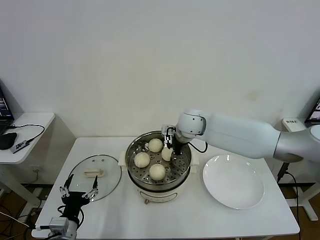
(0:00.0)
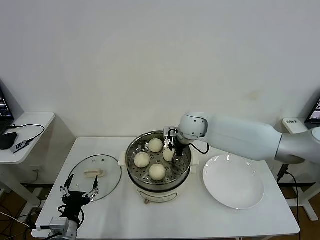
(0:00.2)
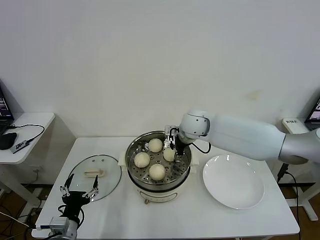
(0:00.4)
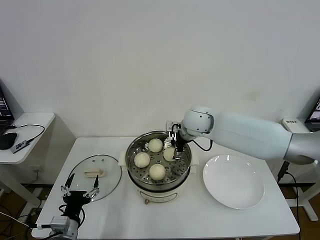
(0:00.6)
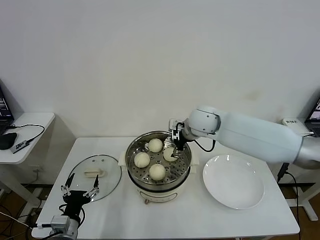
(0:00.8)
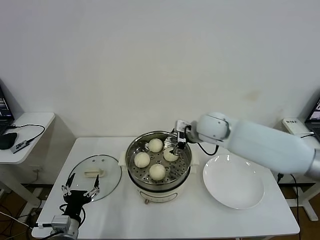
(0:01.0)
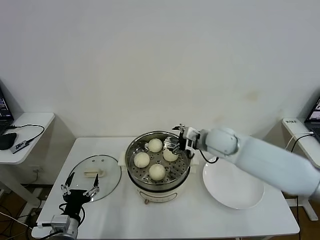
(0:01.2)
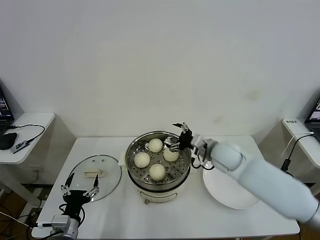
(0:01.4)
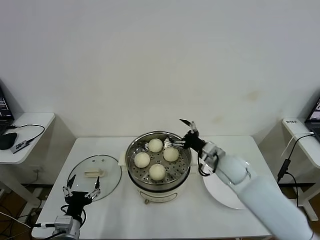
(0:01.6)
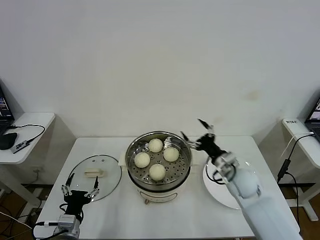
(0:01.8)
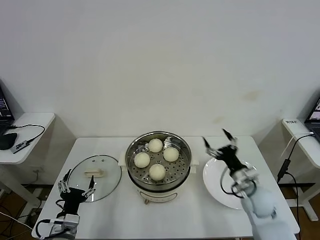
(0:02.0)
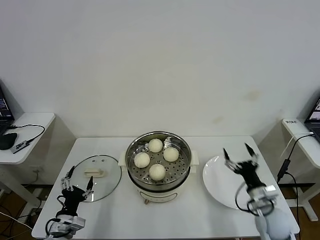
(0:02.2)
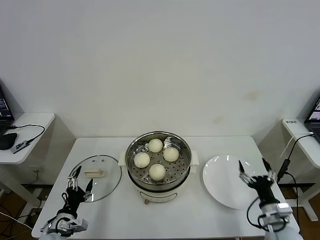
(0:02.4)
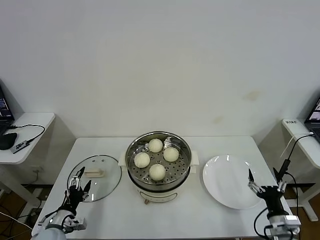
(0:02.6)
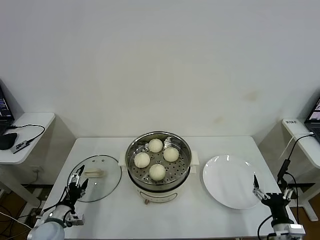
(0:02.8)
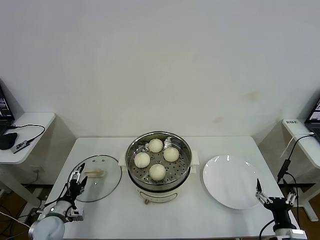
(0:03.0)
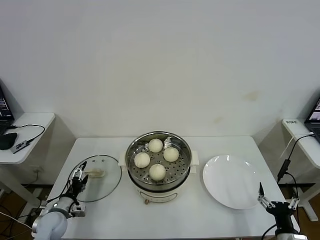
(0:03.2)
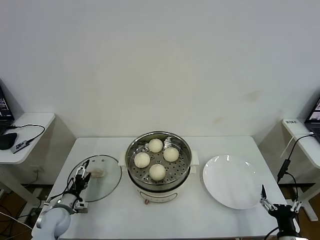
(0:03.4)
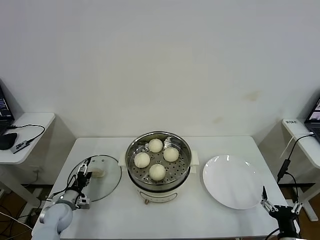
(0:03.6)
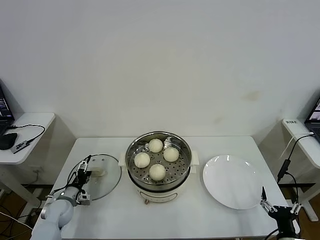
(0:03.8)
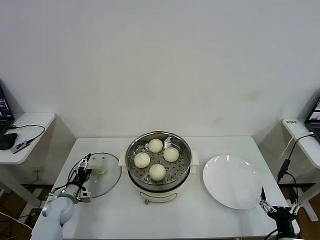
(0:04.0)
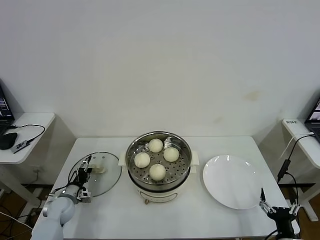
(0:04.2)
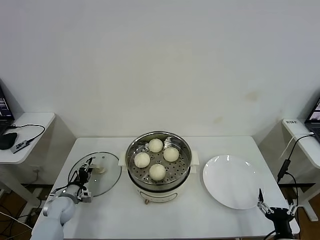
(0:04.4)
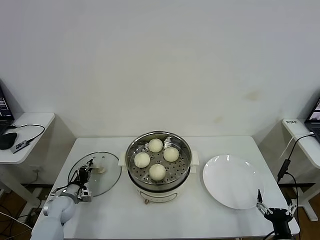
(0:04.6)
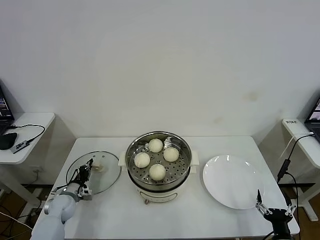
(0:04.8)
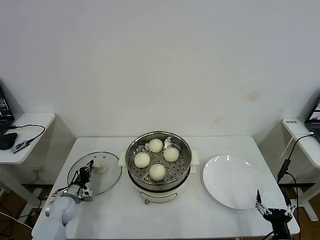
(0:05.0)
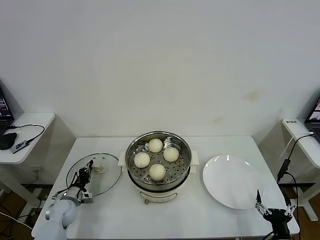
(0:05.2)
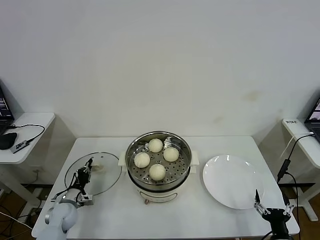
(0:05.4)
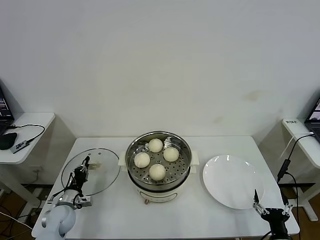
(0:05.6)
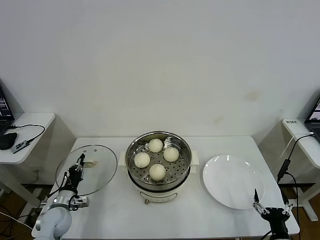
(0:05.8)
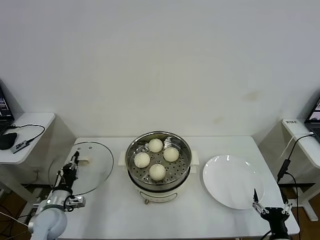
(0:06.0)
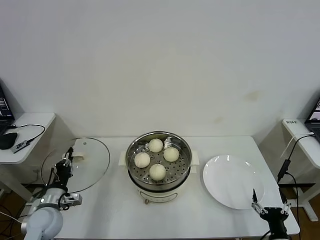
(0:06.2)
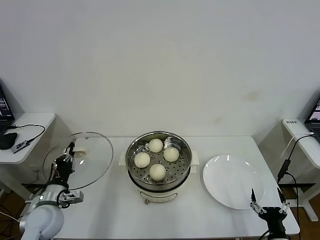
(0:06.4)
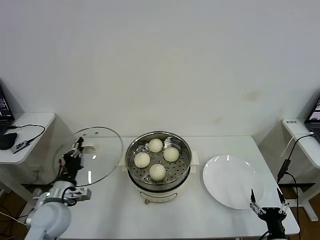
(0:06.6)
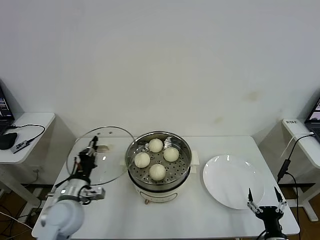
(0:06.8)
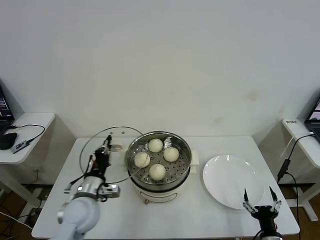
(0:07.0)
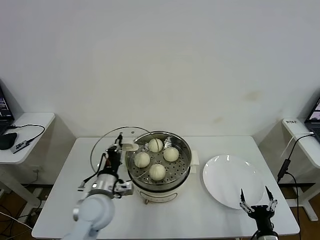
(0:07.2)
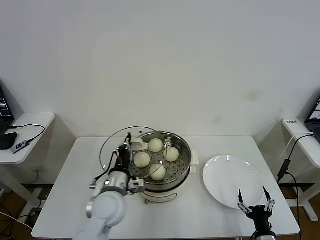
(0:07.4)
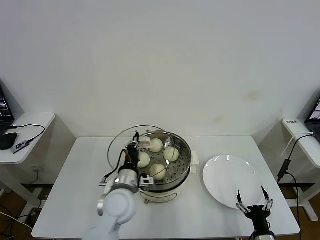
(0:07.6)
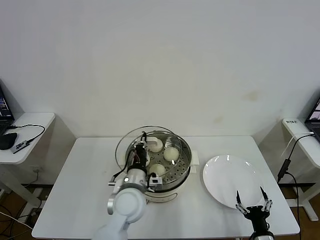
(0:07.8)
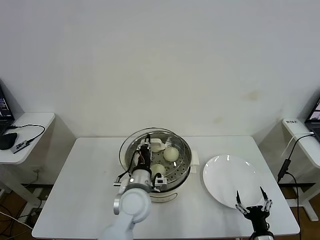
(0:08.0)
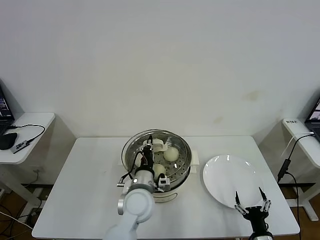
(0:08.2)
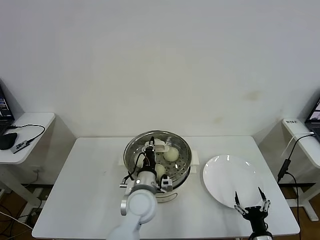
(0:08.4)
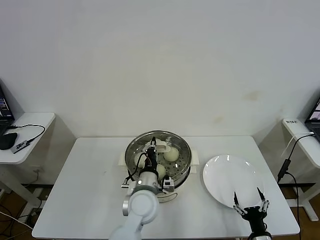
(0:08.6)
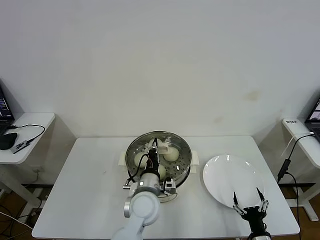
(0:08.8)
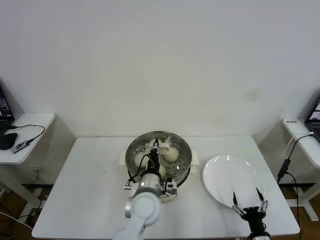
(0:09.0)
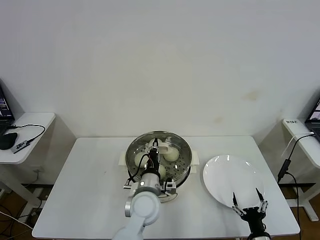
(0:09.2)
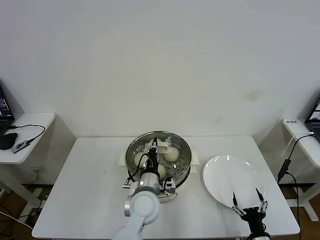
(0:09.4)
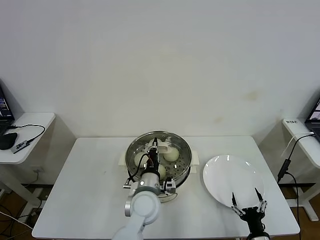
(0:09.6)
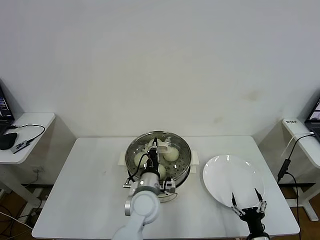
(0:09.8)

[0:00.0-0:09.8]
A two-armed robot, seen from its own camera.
Task of the whole recording: take steamed baozi put them in steamer then cover it.
Step, 0:00.6 to 0:04.8: Grasp the pot lid with left gripper.
0:00.0 to 0:01.4: The right gripper is displaced to the right, backward and downward by about 15 cm, and opens.
0:01.4 to 0:02.8: The right gripper goes roughly 35 cm backward, to the right and downward. The left gripper travels to the left, downward and forward by approximately 15 cm.
0:02.8 to 0:04.2: The left gripper travels forward by about 10 cm.
0:04.2 to 0:05.6: The left gripper closes.
0:05.6 to 0:07.0: The left gripper heads upward and to the right, covering some 20 cm.
0:07.0 to 0:08.4: The left gripper travels to the right by some 15 cm.
0:08.4 to 0:09.8: There are only small adjustments of the grippers.

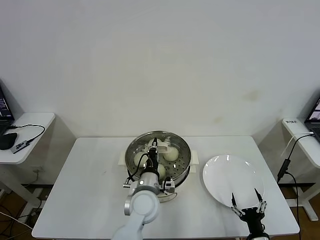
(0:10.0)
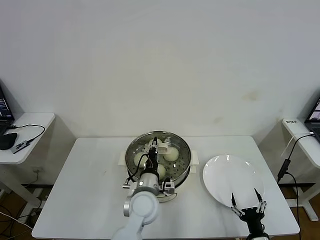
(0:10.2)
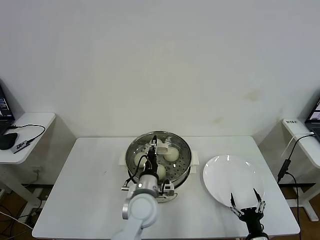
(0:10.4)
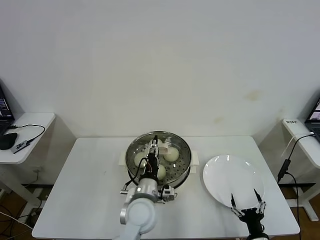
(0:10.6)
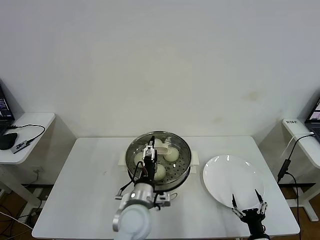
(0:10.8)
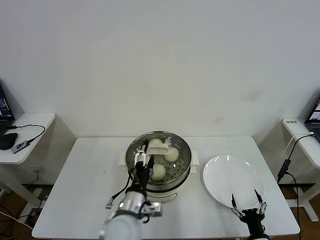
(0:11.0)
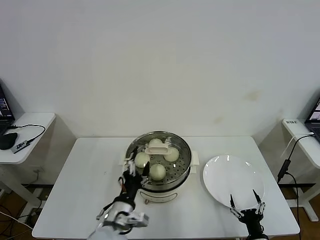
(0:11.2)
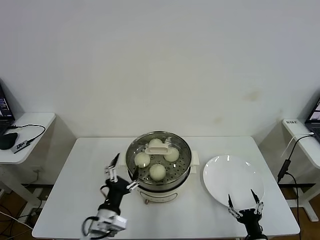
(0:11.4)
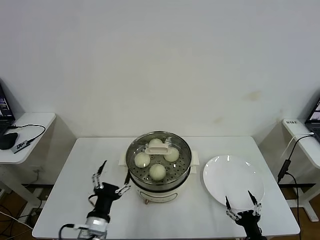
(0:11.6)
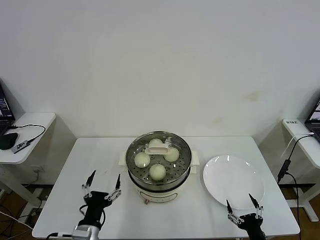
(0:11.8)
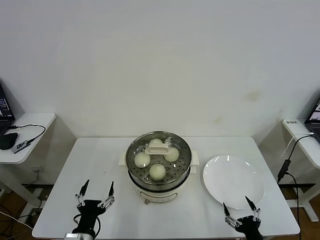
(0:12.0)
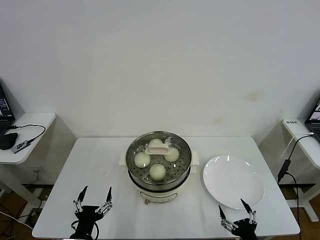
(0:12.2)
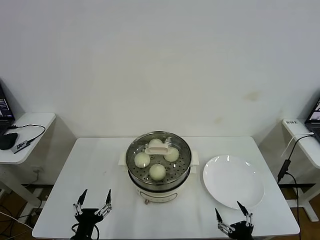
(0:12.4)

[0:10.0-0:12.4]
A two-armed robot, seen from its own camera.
Task of the whole recording: take steamed baozi put them in steamer then cover it.
0:10.0 to 0:11.2: The left gripper shifts about 10 cm backward and to the left, and opens.
0:11.2 to 0:12.4: The left gripper moves to the left, backward and downward, approximately 15 cm. The right gripper is displaced upward by about 5 cm.

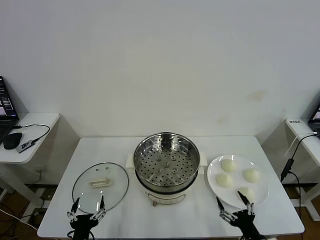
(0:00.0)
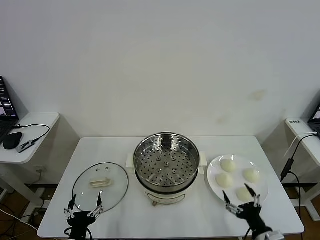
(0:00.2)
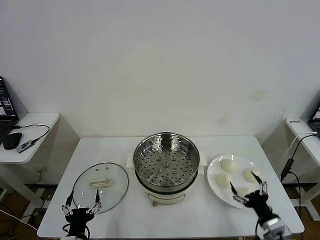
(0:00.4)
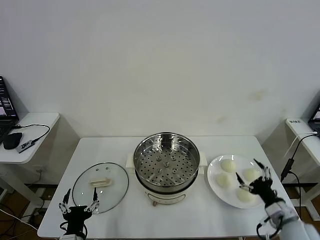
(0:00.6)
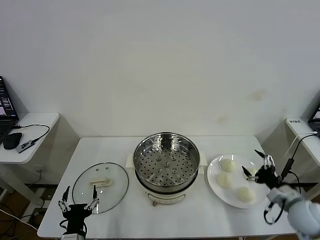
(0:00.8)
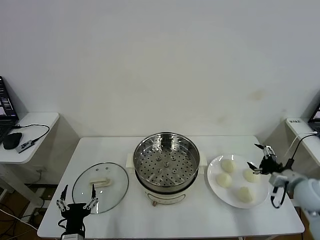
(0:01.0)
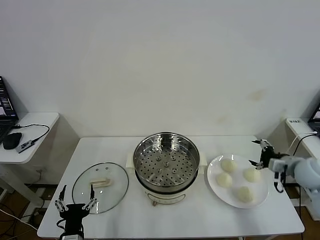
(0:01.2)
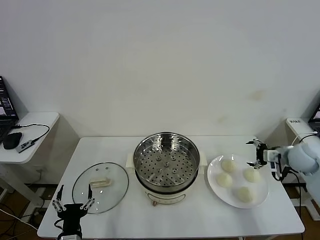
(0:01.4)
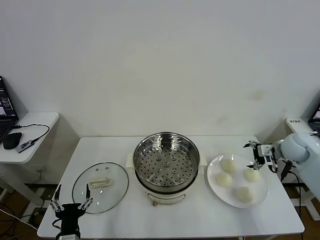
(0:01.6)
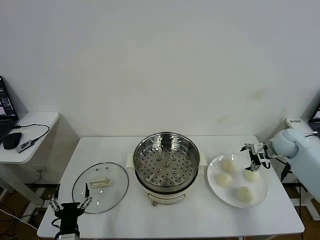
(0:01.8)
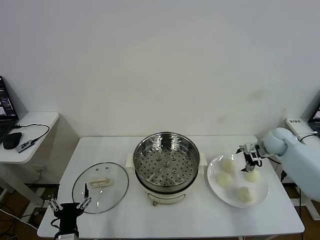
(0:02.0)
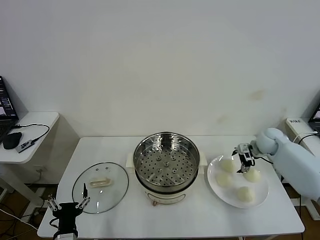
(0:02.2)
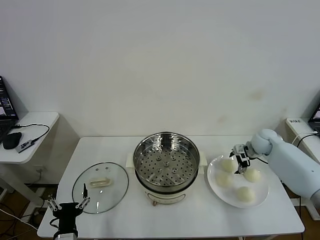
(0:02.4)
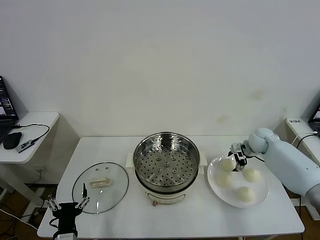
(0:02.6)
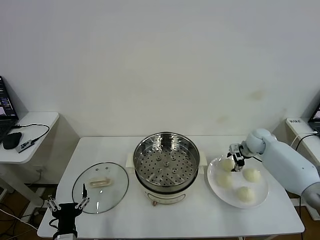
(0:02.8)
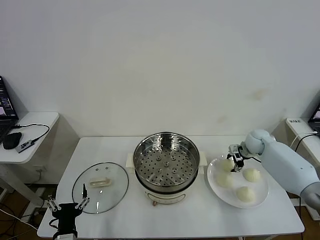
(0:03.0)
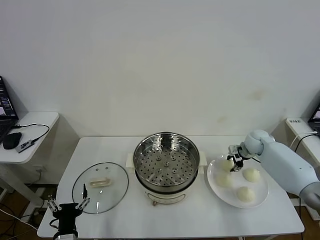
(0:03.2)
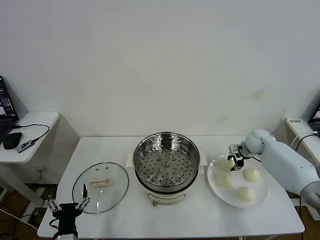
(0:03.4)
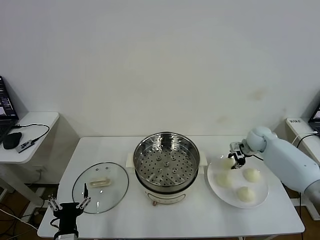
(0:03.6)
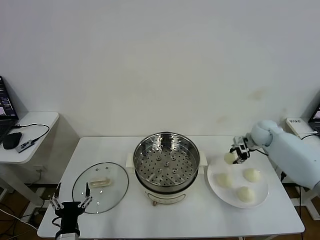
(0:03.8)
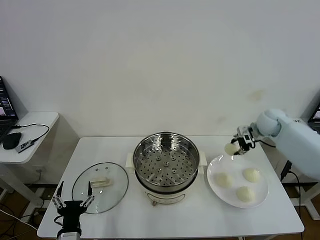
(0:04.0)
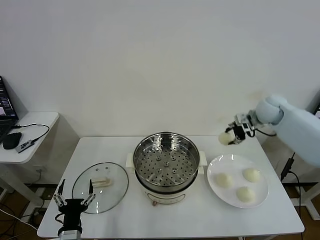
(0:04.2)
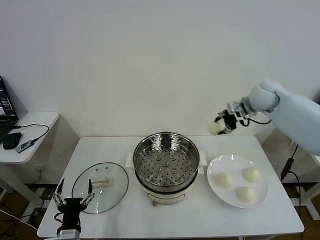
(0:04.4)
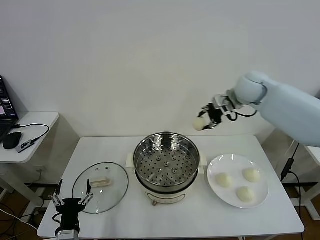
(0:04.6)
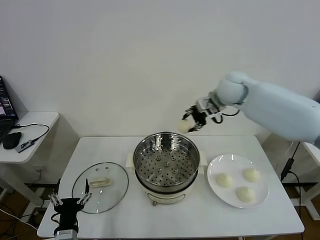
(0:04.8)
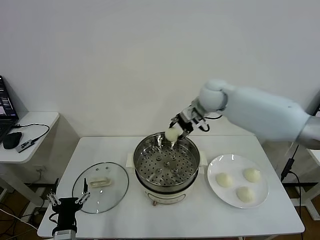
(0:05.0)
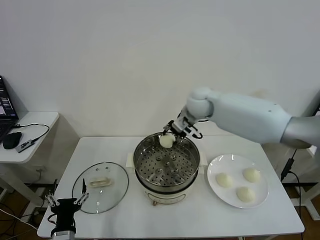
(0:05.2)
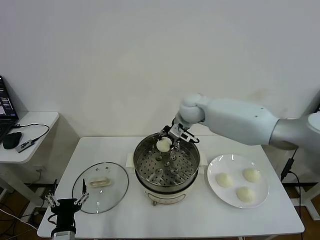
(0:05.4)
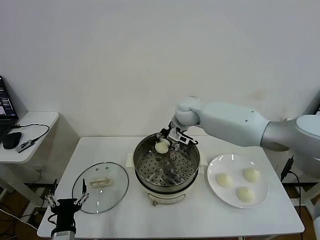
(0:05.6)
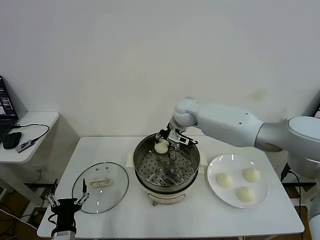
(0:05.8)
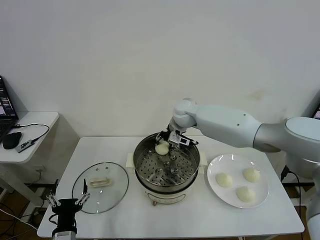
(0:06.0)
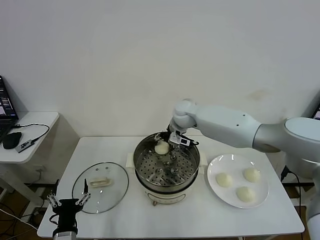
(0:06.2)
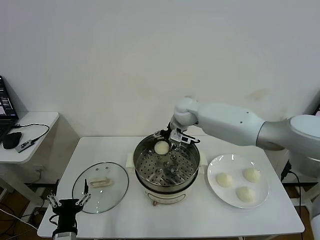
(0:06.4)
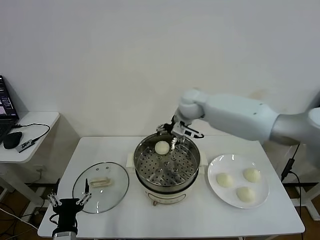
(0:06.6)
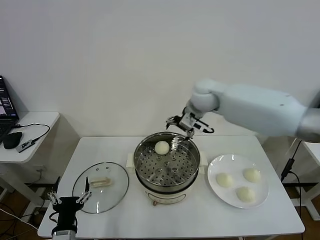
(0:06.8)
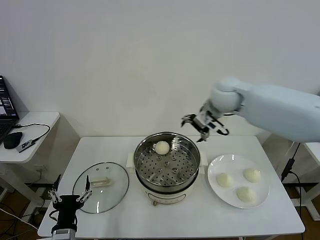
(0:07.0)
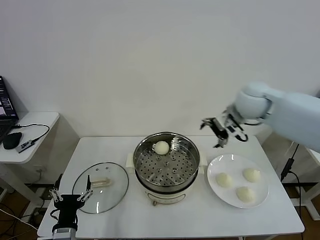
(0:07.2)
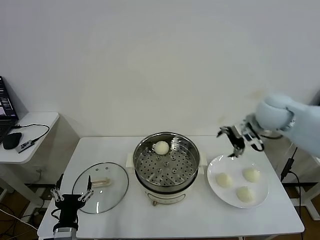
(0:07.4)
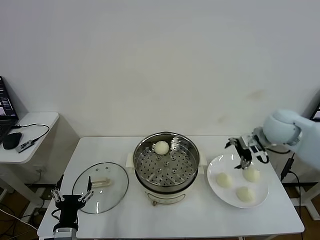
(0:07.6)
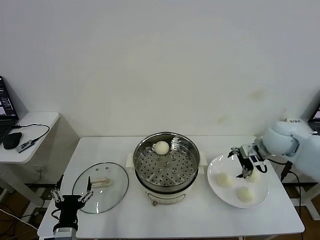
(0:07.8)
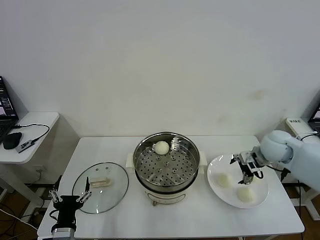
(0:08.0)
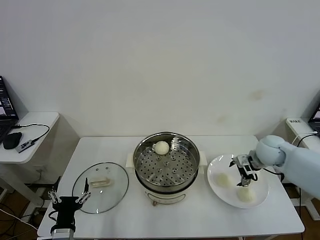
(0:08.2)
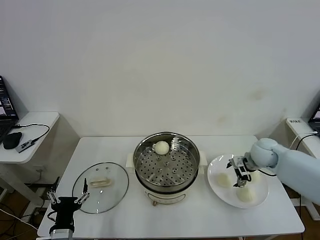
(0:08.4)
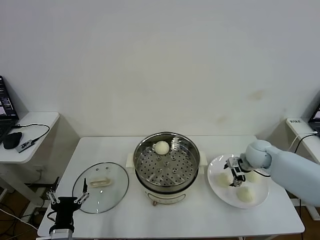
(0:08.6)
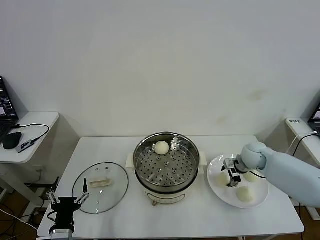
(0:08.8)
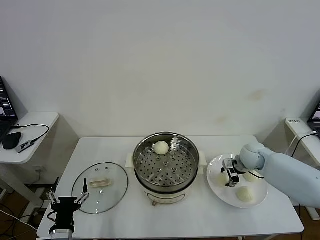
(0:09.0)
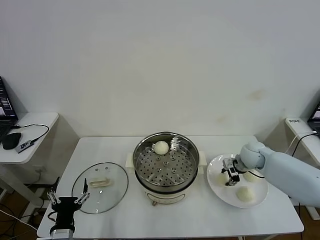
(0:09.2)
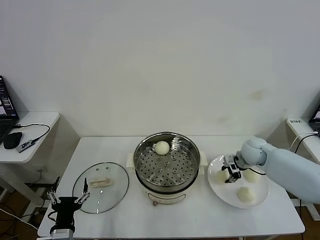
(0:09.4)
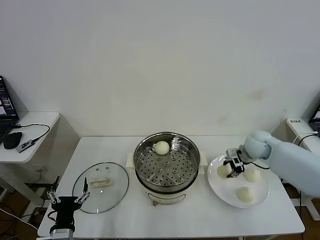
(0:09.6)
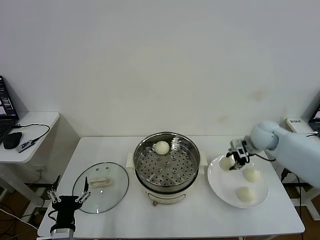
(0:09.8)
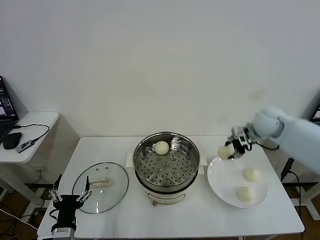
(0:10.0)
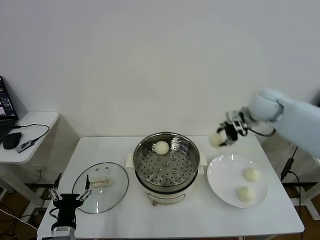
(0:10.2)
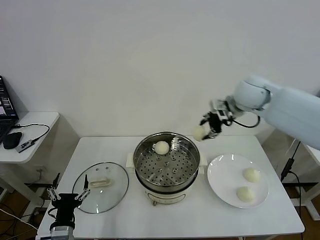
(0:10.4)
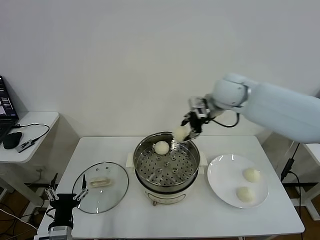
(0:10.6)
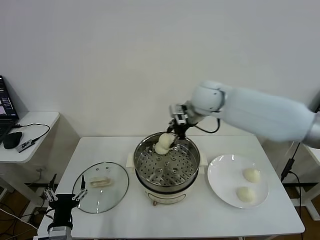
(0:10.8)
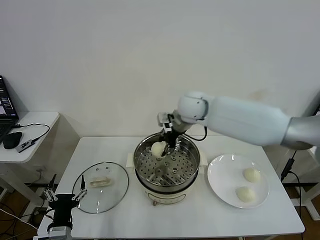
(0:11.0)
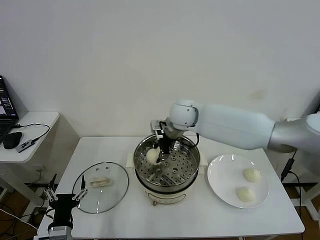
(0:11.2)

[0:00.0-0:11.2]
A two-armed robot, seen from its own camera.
Task of the whole recording: take steamed baozi put them in steamer then cover it.
Step, 0:00.0 to 0:03.2: Grasp the baozi in the plate with right gripper.
Step, 0:03.4 to 0:06.2: Place the baozi on the steamer with right gripper.
Step, 0:06.4 to 0:09.2: Grasp the baozi in the plate with right gripper.
0:01.6 to 0:03.2: The right gripper is displaced forward, downward and to the left by roughly 15 cm, and closes its fingers.
0:03.2 to 0:04.8: The right gripper heads upward and to the left, covering about 30 cm.
0:04.8 to 0:06.4: The right gripper travels to the left and downward by approximately 15 cm, and opens.
0:06.4 to 0:08.0: The right gripper shifts about 30 cm to the right and backward.
0:08.0 to 0:09.6: The right gripper closes.
0:09.6 to 0:11.2: The right gripper travels to the left and upward by some 30 cm.
